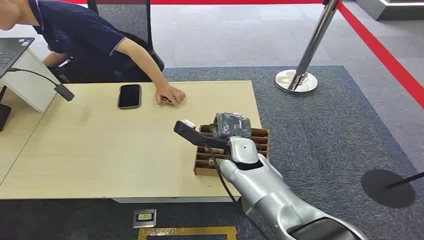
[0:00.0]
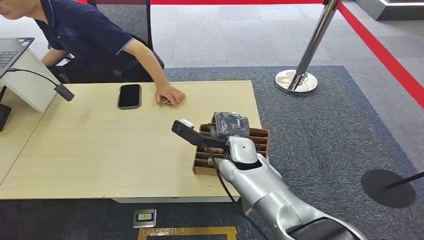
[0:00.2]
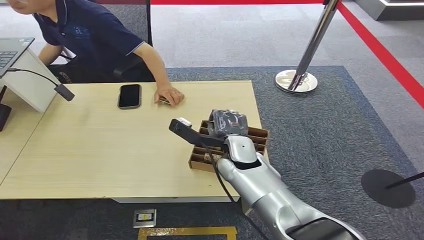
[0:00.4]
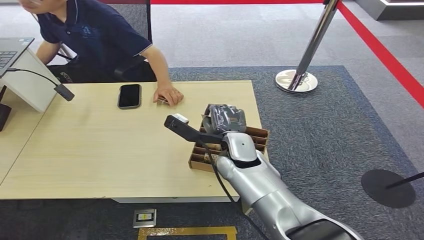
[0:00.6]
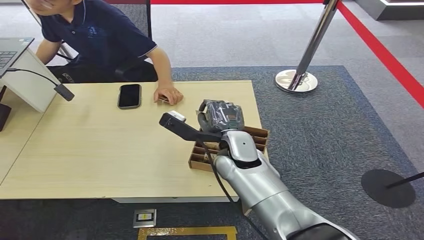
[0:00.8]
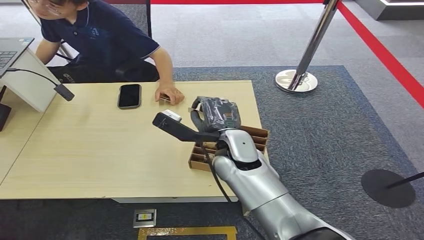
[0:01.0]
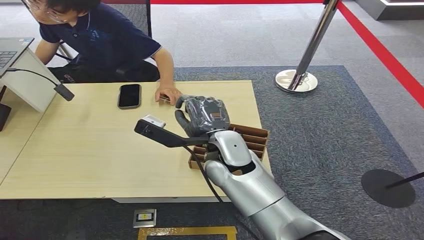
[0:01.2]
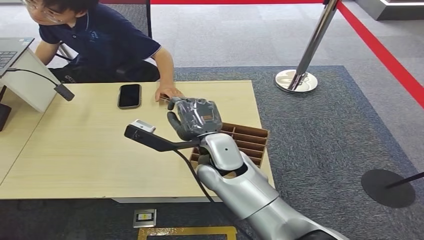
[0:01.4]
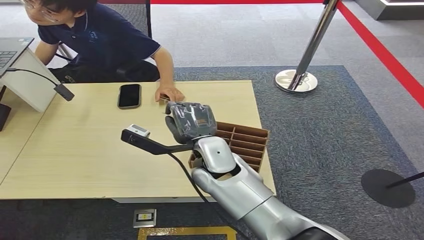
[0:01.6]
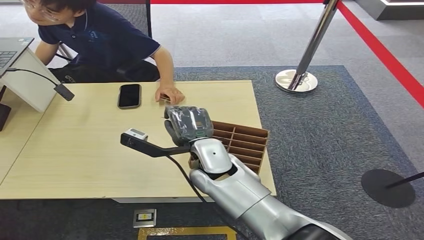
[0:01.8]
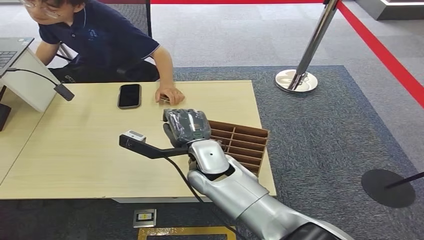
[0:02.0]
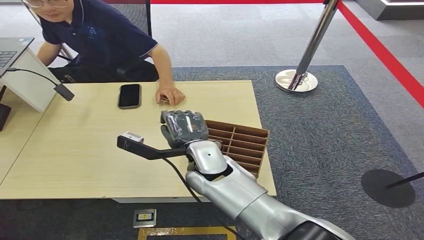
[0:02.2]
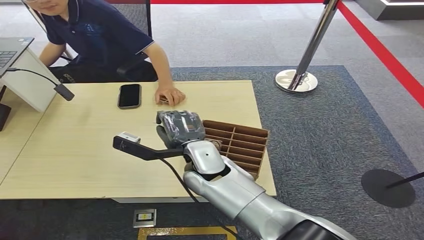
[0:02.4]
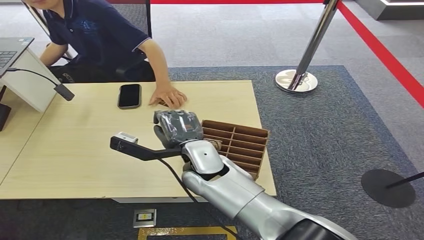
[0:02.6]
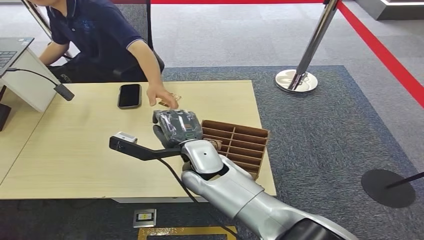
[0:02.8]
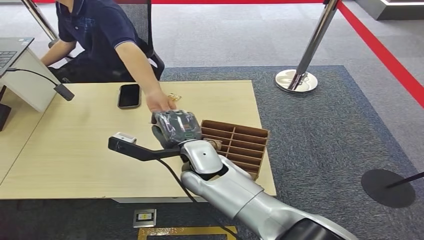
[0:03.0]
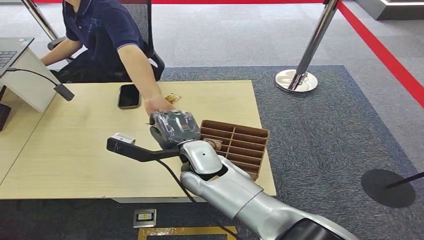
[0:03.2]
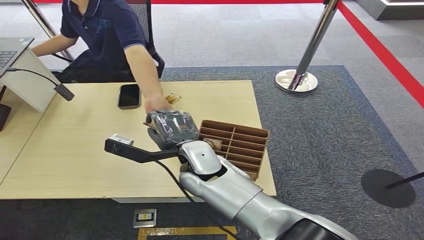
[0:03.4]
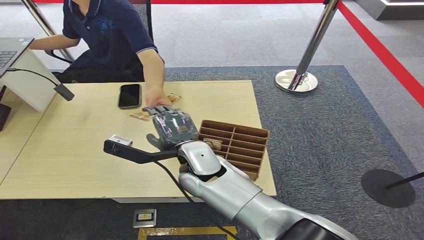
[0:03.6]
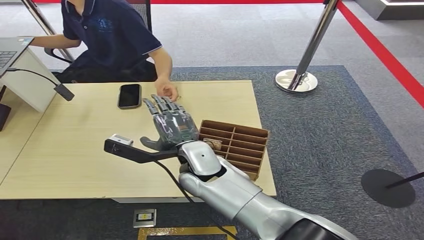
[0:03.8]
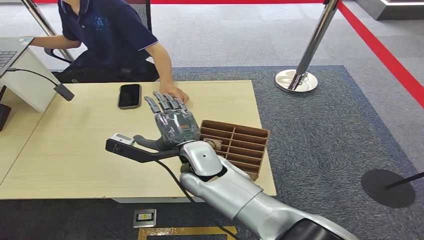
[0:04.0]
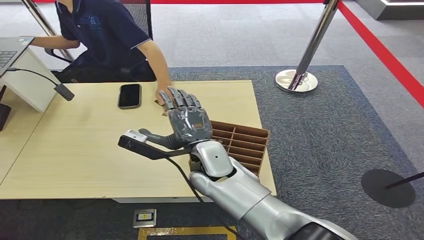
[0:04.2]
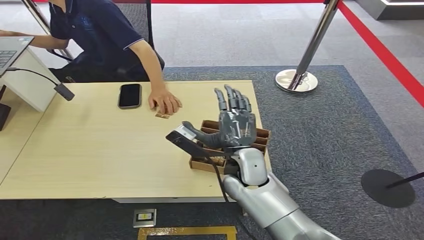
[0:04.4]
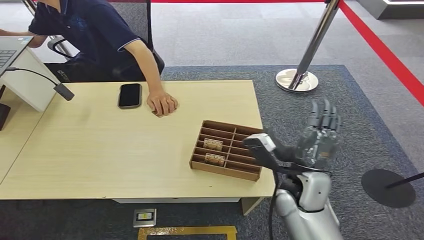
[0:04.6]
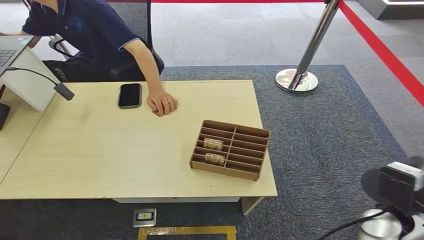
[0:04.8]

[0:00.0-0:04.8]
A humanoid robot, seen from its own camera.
Step, 0:00.0 to 0:01.0: Pick up the room card from the card holder.
Step, 0:01.4 to 0:04.8: Hand the room card to the target.
0:01.6 to 0:03.2: The hands move only a little.
0:03.2 to 0:04.8: The right hand goes roughly 30 cm to the right.

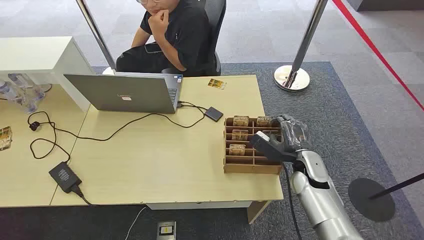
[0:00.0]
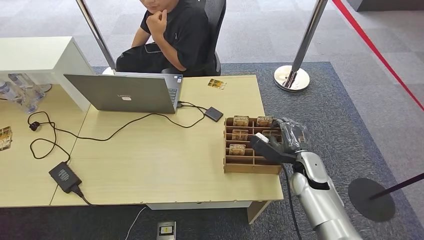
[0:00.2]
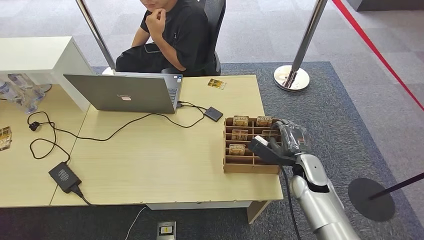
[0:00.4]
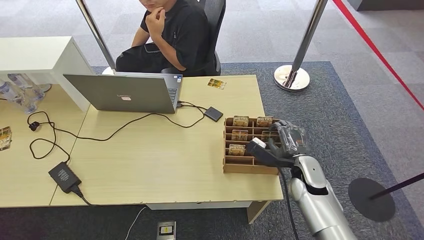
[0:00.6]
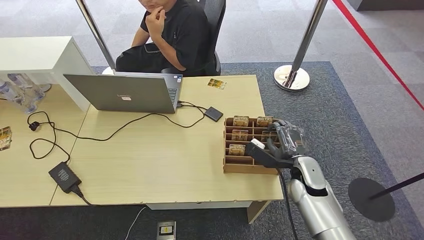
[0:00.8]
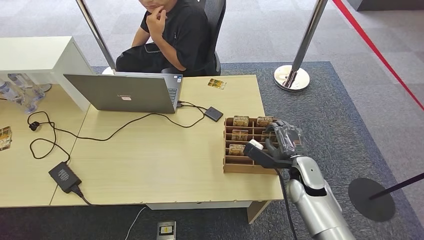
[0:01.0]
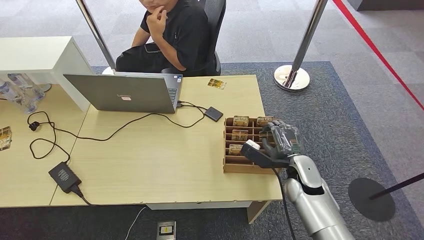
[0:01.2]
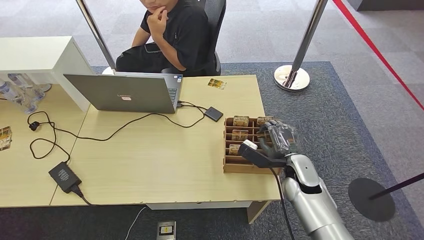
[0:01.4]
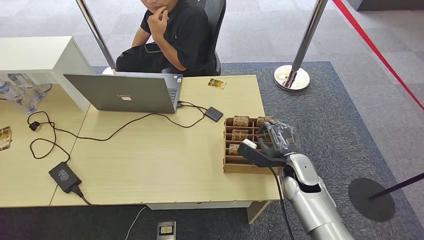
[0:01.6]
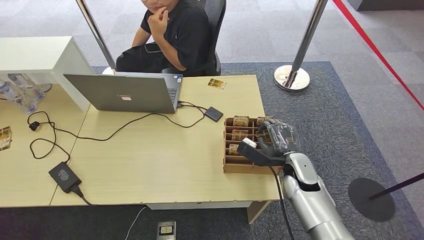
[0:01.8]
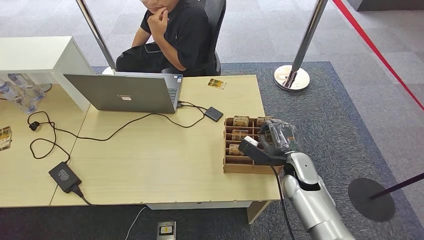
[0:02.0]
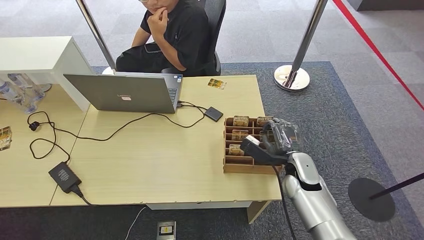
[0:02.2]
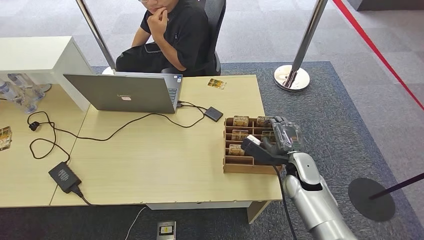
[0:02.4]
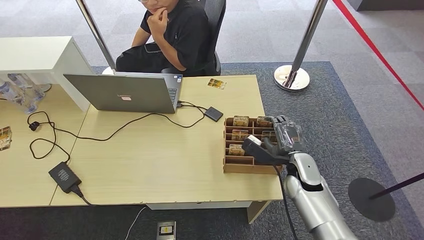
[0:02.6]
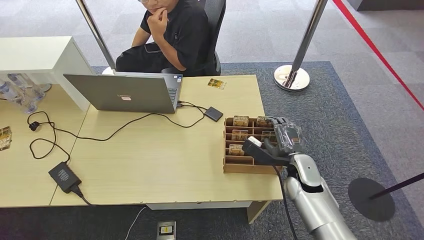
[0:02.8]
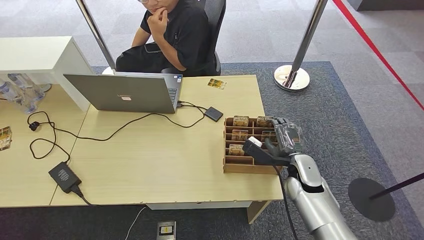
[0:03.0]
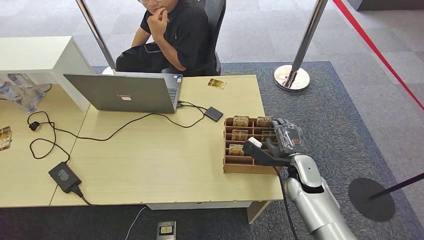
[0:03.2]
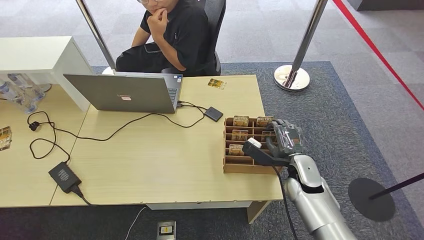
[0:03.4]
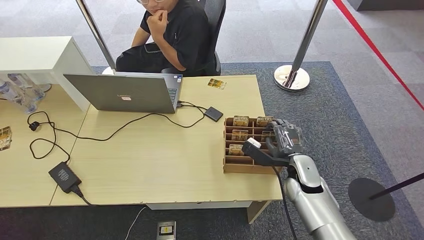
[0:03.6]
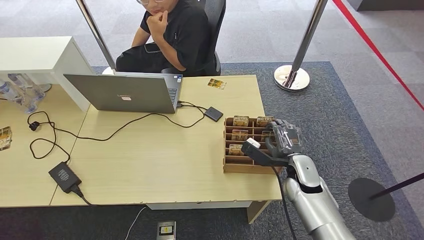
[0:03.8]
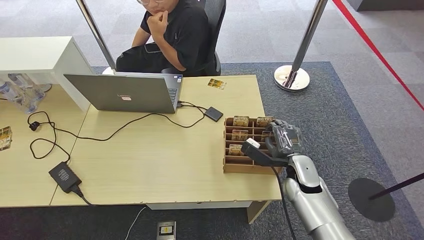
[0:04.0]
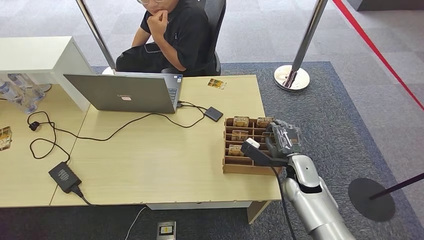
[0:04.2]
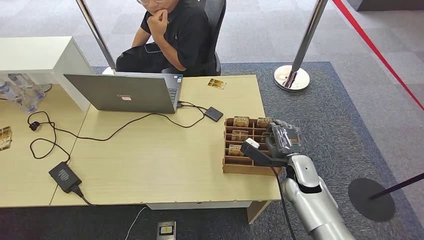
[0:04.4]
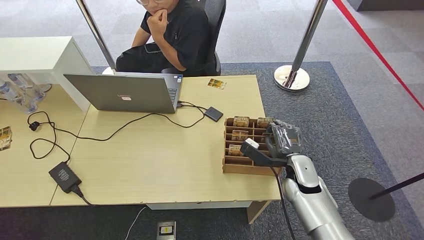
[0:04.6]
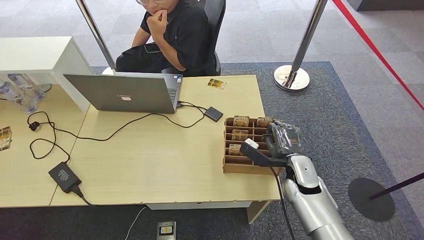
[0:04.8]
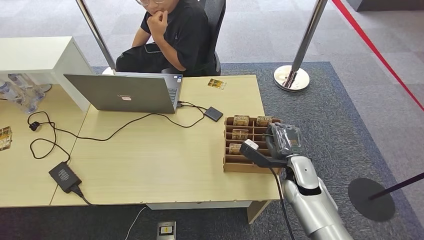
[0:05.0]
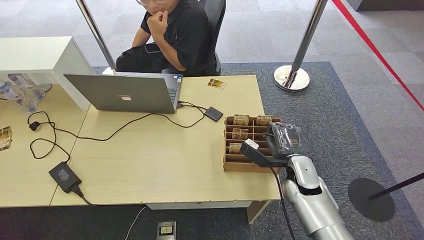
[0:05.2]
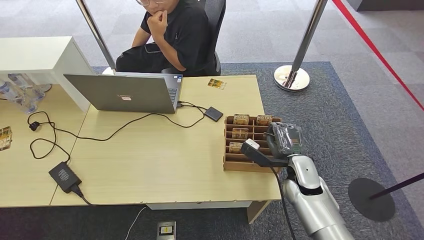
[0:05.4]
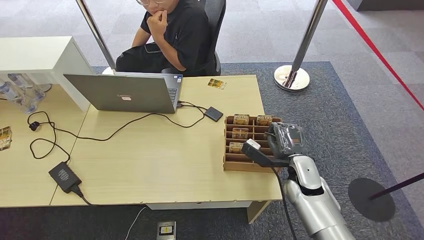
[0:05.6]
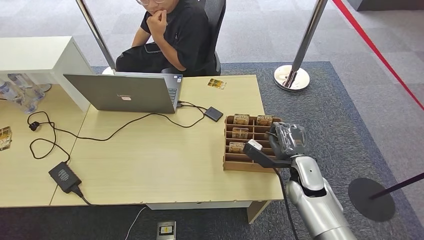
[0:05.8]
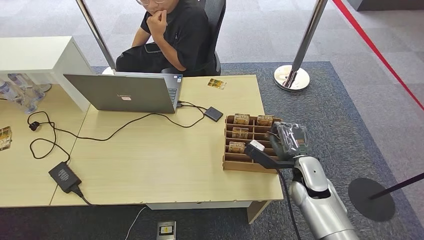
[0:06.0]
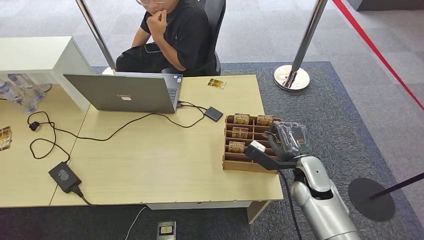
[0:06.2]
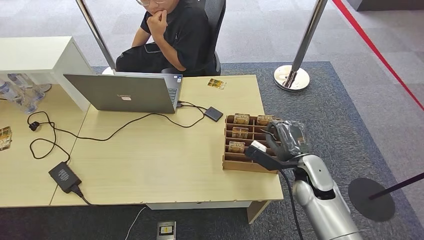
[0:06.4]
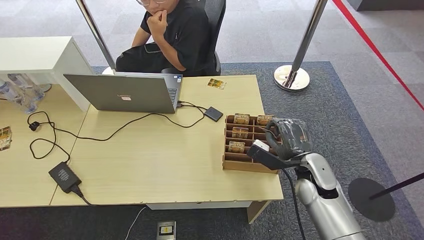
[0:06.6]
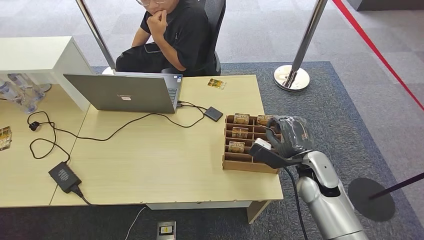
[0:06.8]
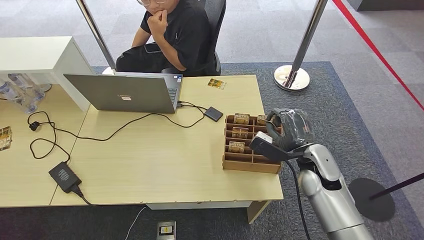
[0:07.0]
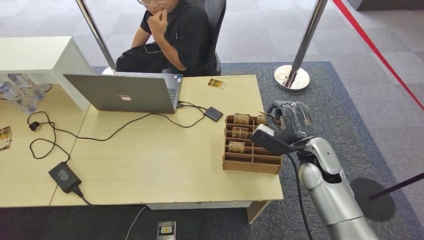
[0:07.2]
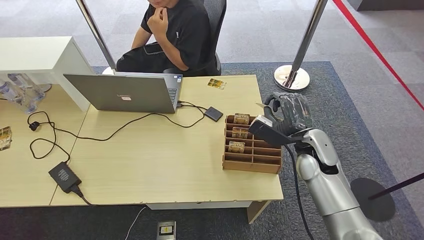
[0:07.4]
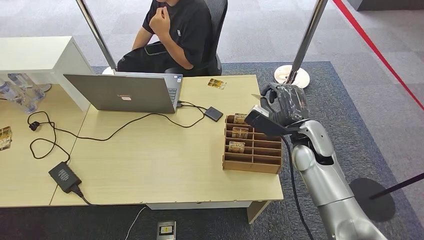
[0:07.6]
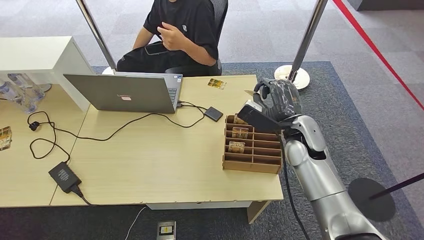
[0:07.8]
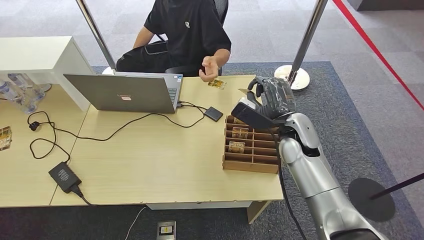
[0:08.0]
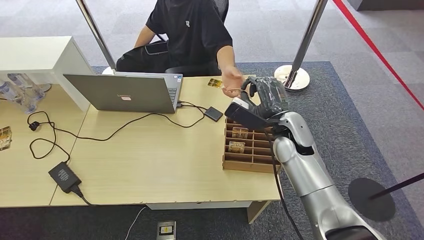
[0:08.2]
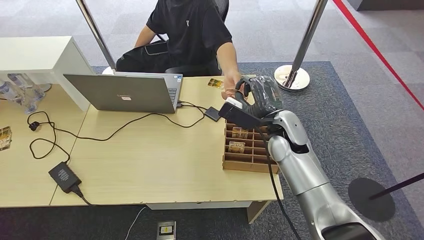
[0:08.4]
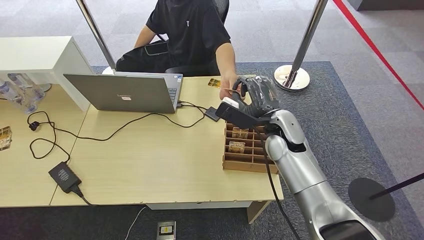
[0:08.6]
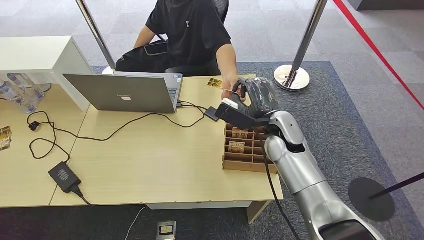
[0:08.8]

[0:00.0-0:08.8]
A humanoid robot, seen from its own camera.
Step, 0:00.0 to 0:08.6: Pick up the room card from the card holder.
0:01.4 to 0:03.0: The two hands keep their place.
0:03.0 to 0:05.8: Both hands stay about where they are.
0:05.8 to 0:07.4: The right hand travels upward by roughly 10 cm.
0:07.4 to 0:08.8: The right hand moves to the left, about 10 cm.
